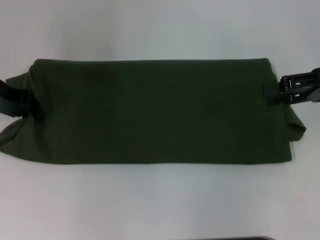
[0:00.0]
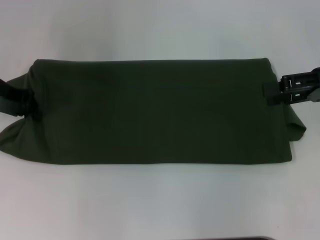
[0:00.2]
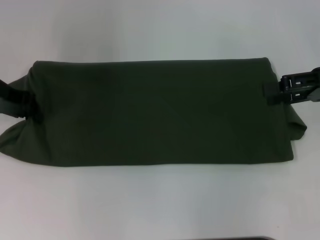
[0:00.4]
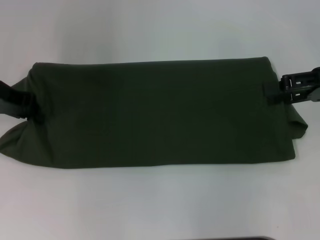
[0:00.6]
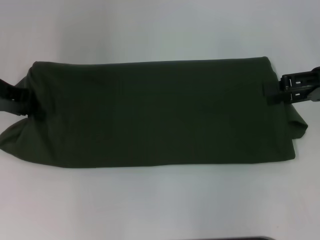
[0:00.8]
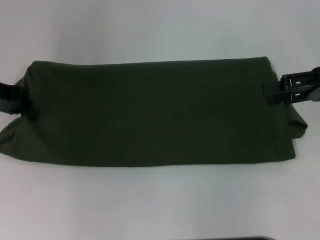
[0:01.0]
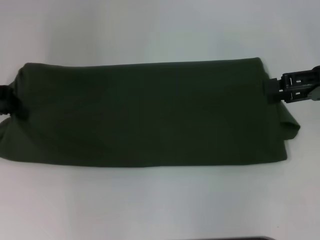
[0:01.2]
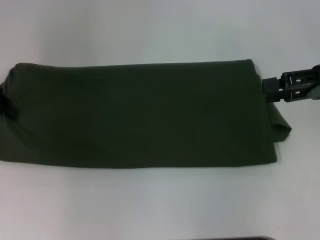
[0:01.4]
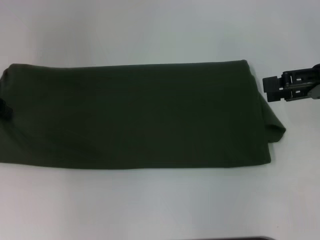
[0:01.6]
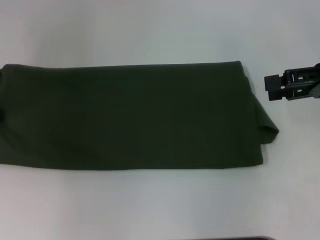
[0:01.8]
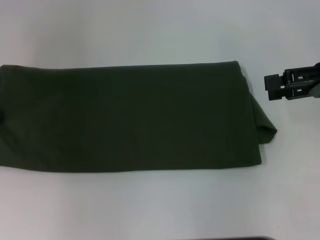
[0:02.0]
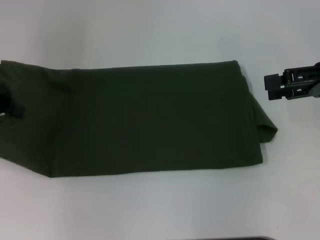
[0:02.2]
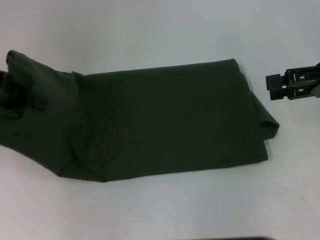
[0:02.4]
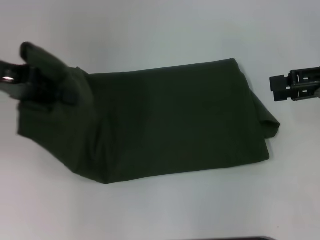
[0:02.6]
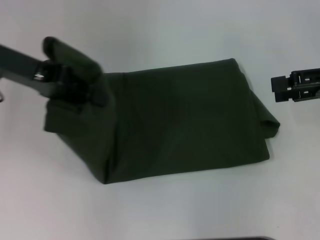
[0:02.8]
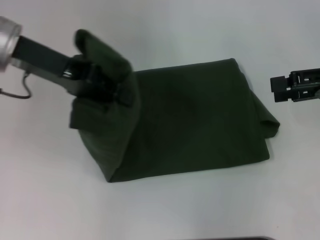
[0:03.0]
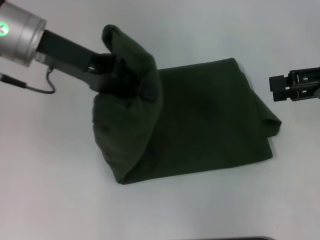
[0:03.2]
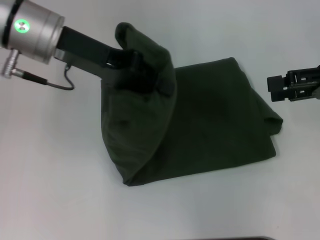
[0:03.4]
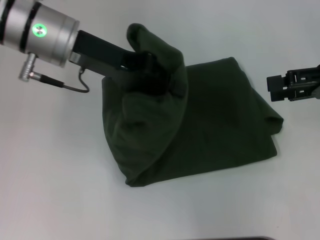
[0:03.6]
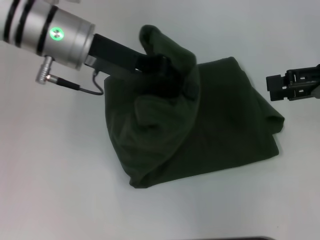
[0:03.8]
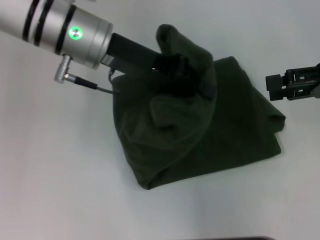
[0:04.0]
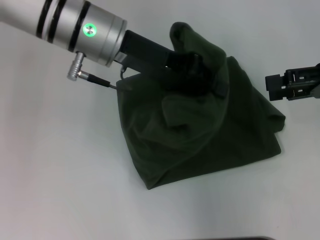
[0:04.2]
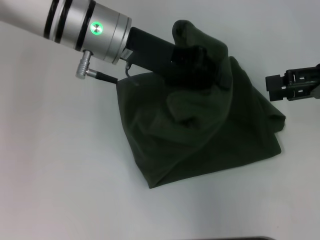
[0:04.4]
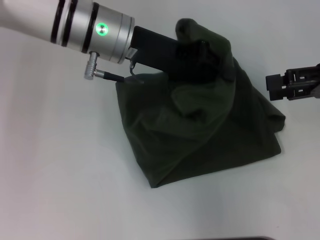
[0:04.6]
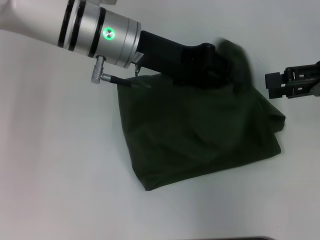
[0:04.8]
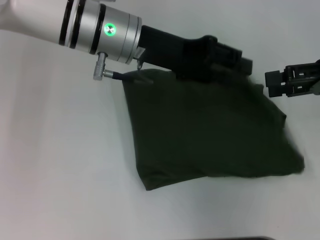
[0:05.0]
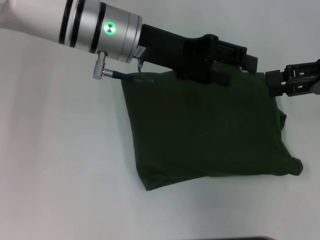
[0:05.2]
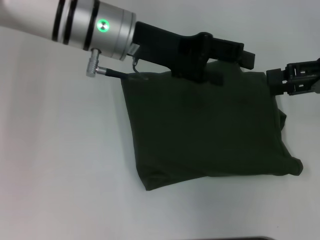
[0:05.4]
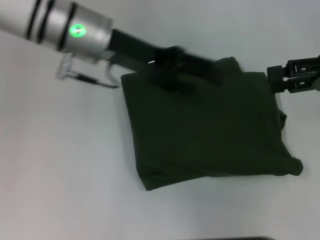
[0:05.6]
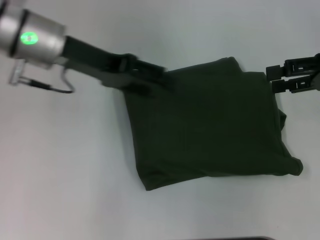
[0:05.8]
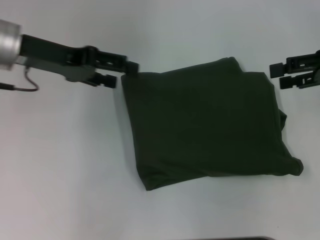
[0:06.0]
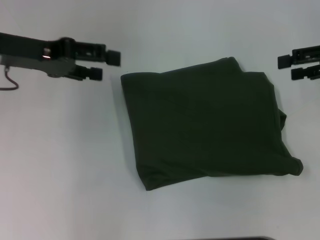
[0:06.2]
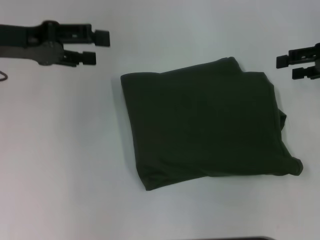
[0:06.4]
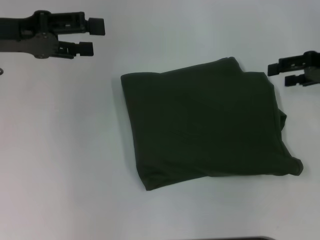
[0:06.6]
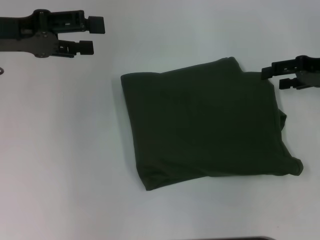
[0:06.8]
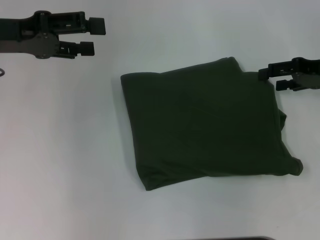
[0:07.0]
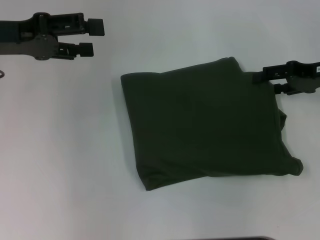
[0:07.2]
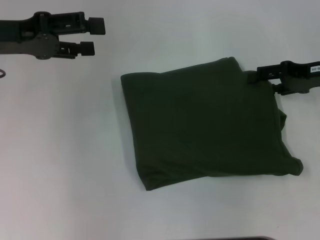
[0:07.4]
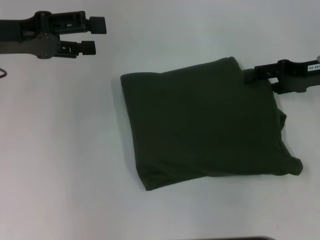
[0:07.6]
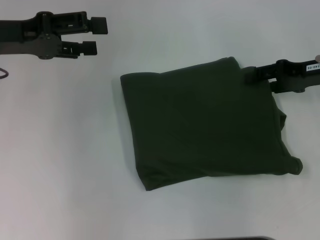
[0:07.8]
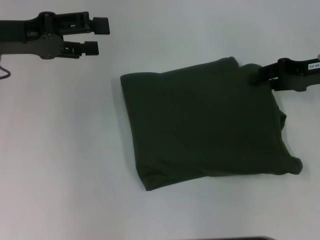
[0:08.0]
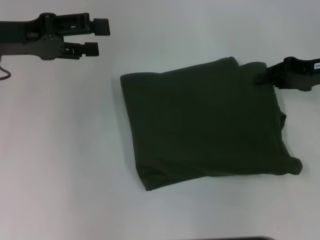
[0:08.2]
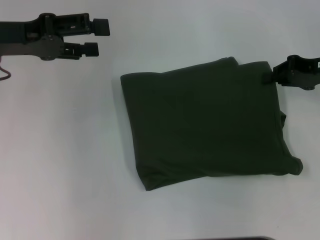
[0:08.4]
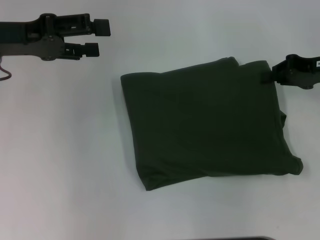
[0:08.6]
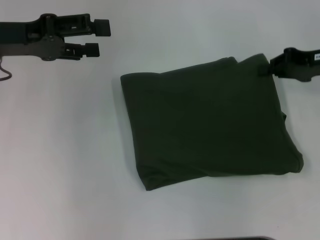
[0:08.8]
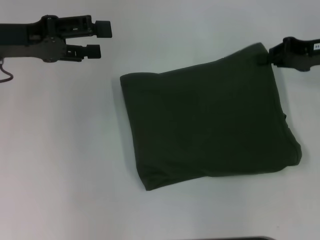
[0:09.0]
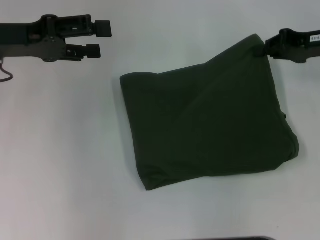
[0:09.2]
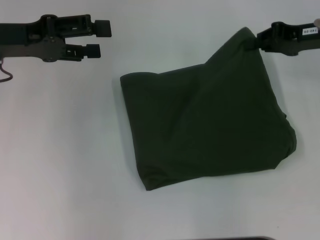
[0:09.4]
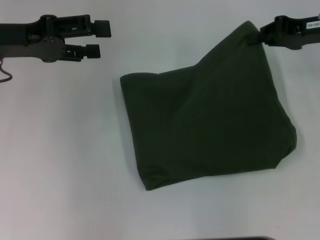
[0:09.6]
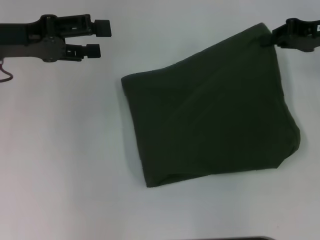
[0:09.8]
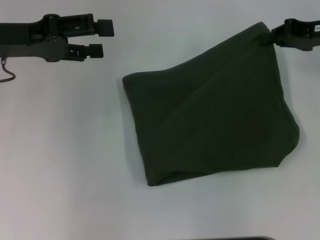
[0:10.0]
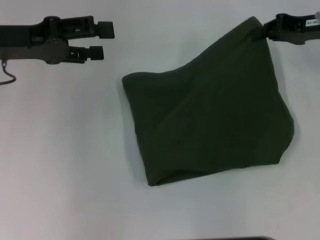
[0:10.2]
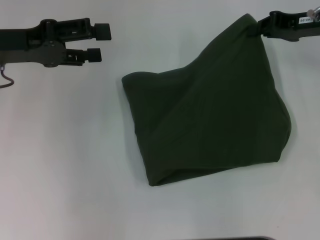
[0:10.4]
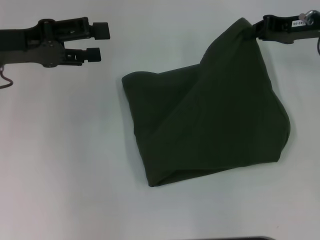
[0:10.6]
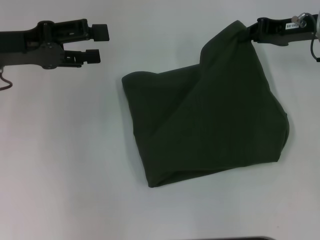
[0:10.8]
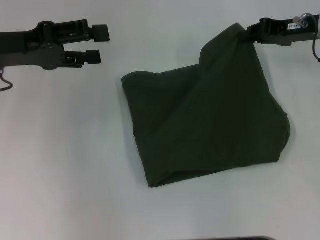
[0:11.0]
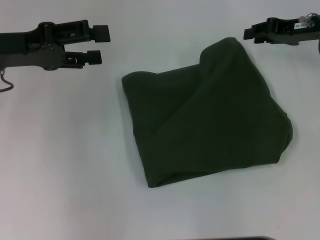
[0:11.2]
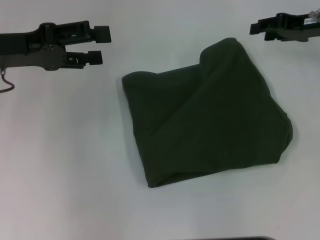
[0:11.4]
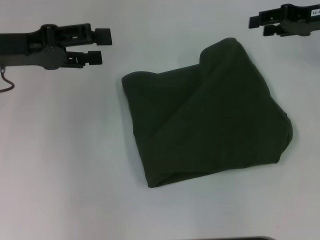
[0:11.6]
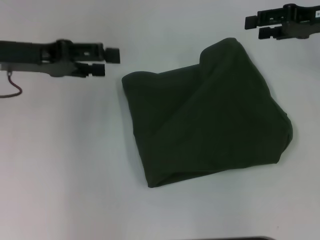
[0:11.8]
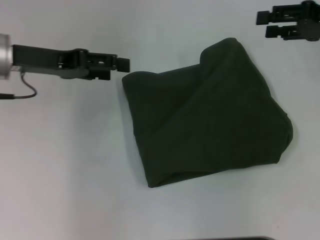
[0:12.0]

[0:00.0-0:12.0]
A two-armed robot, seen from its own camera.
Step, 0:00.0 to 0:05.8: Fold the clothes with your left hand.
0:00.0 to 0:01.6: The left gripper shifts approximately 5 cm to the left, and closes up.
0:01.6 to 0:03.0: The left gripper shifts approximately 15 cm to the right.
0:03.0 to 0:04.4: The left gripper moves to the right, about 10 cm.
0:04.4 to 0:06.0: The left gripper is displaced to the left by some 15 cm, and opens its fingers.
0:06.0 to 0:07.6: The left gripper shifts by about 5 cm. The right gripper shifts roughly 5 cm downward.
0:07.6 to 0:09.0: The right gripper closes.
0:09.0 to 0:10.4: The grippers stay close to where they were, moving slightly.
0:10.4 to 0:12.0: The right gripper opens its fingers.

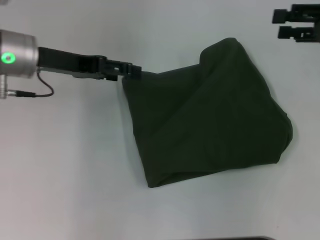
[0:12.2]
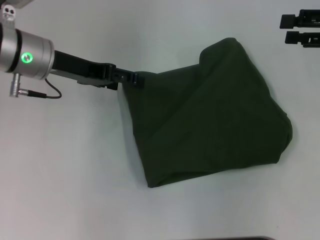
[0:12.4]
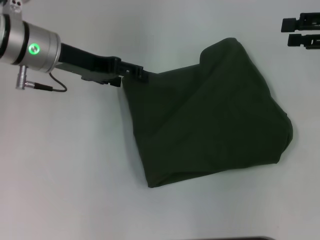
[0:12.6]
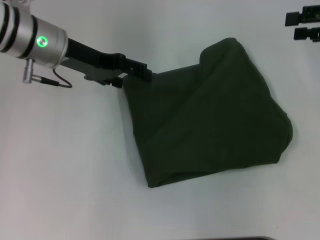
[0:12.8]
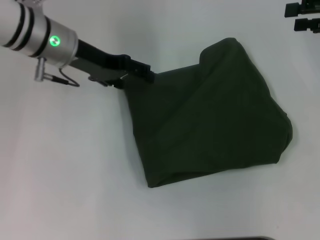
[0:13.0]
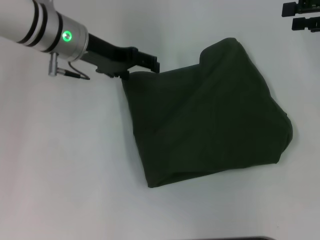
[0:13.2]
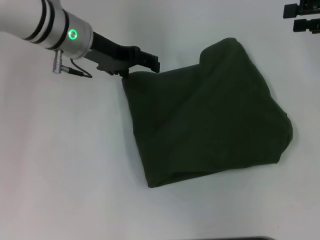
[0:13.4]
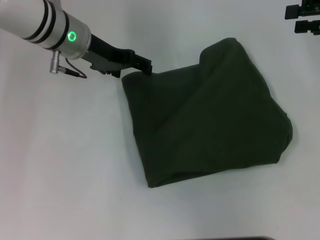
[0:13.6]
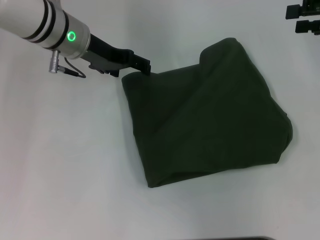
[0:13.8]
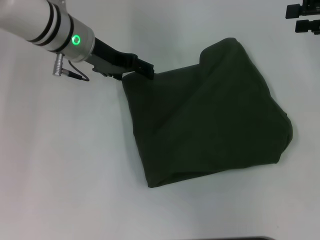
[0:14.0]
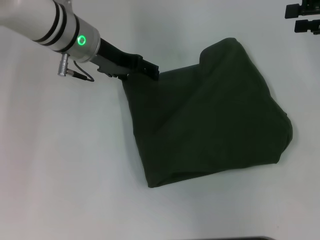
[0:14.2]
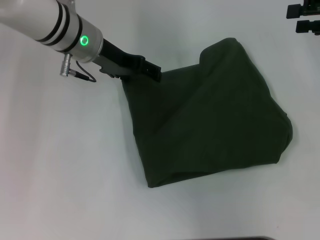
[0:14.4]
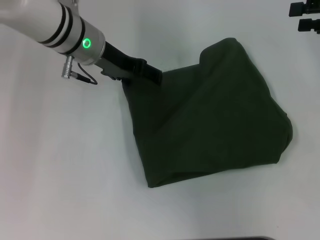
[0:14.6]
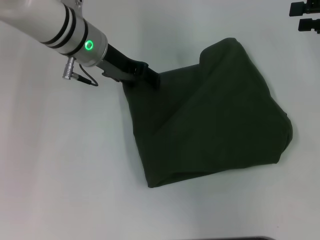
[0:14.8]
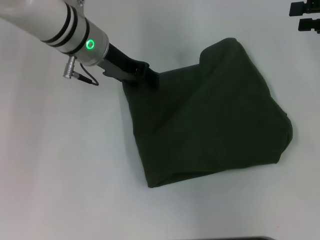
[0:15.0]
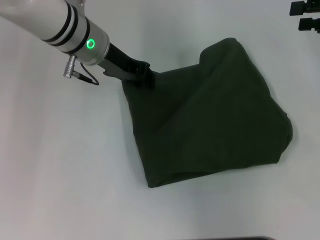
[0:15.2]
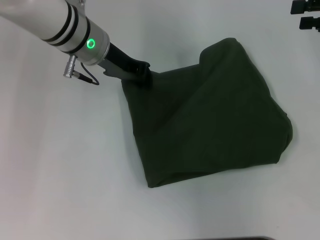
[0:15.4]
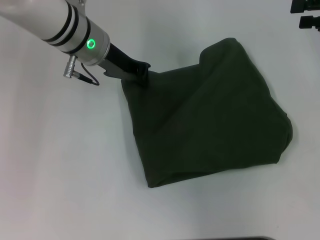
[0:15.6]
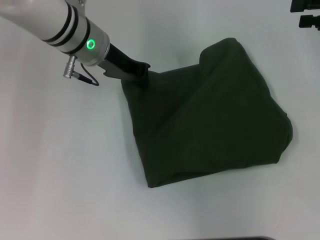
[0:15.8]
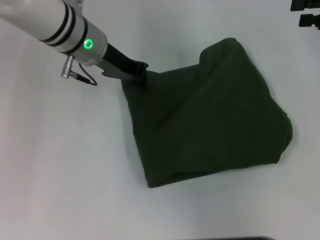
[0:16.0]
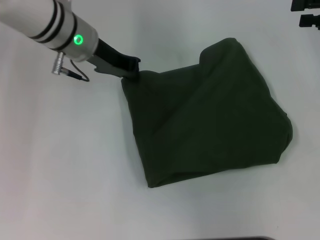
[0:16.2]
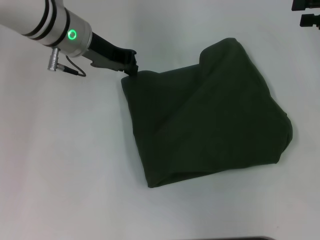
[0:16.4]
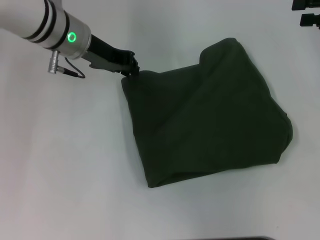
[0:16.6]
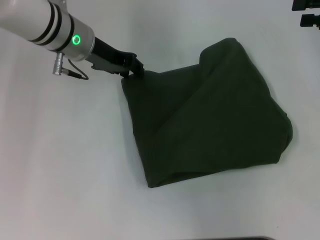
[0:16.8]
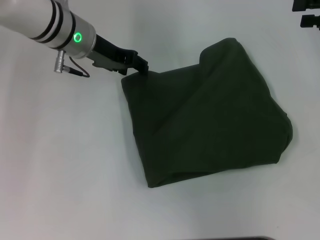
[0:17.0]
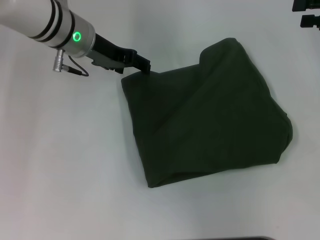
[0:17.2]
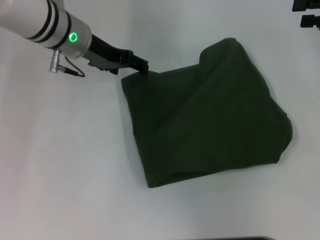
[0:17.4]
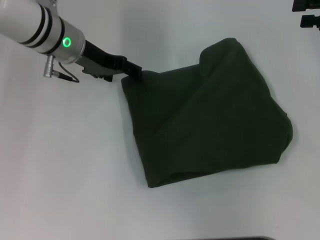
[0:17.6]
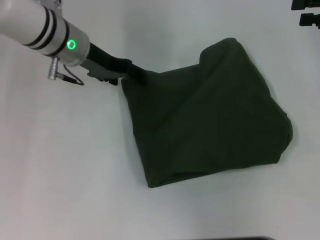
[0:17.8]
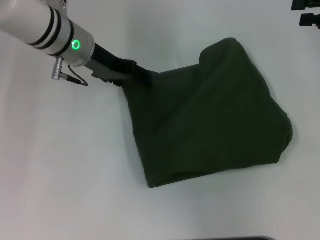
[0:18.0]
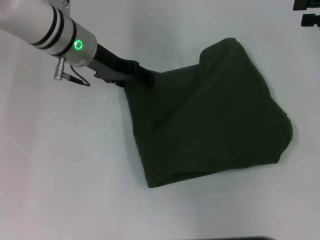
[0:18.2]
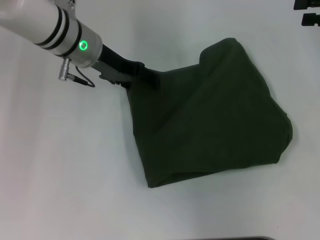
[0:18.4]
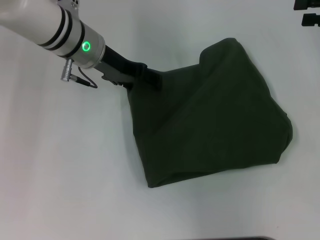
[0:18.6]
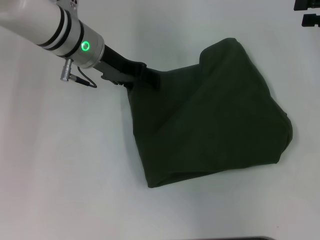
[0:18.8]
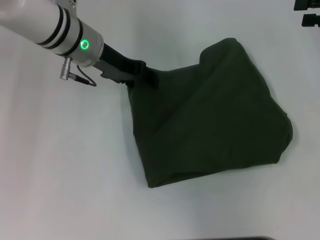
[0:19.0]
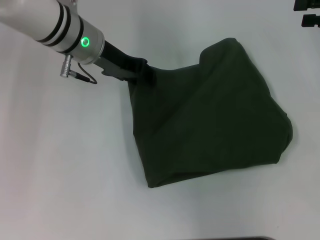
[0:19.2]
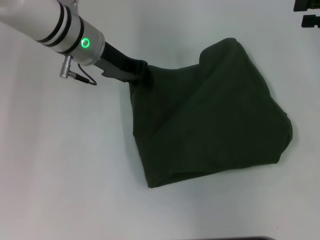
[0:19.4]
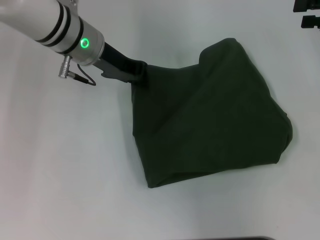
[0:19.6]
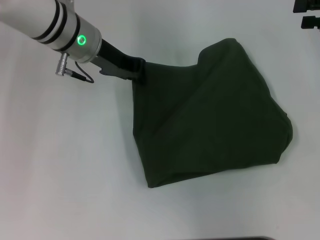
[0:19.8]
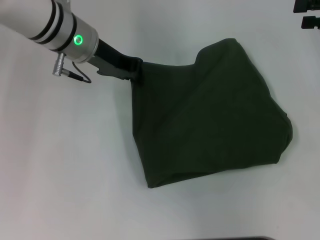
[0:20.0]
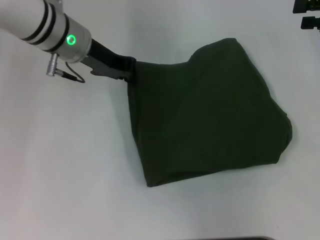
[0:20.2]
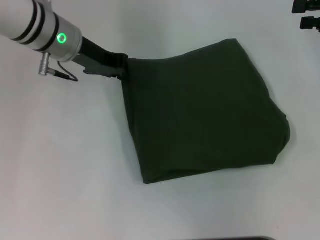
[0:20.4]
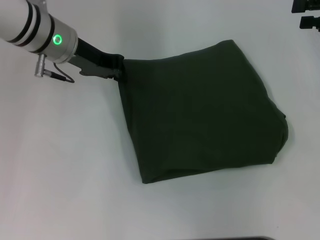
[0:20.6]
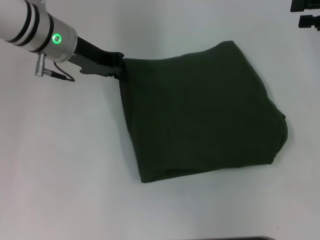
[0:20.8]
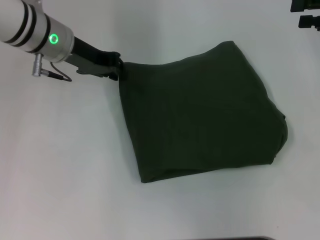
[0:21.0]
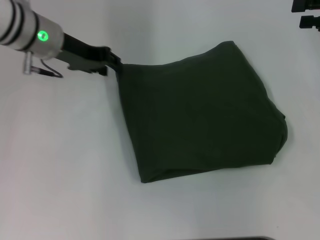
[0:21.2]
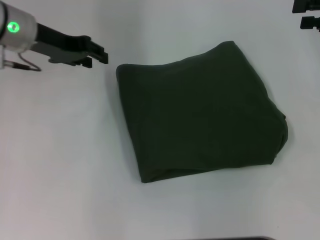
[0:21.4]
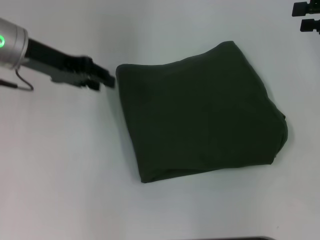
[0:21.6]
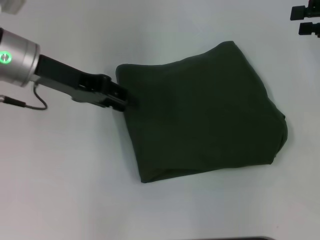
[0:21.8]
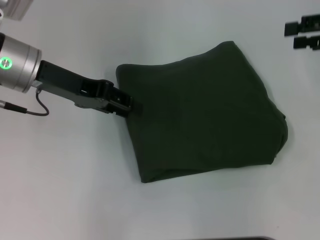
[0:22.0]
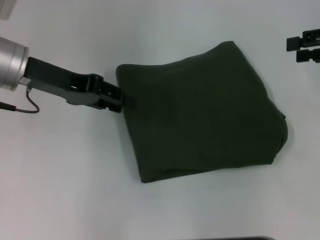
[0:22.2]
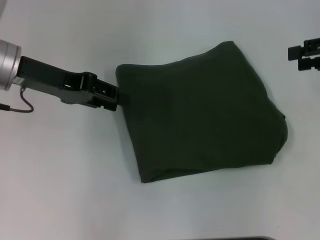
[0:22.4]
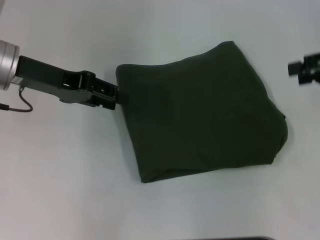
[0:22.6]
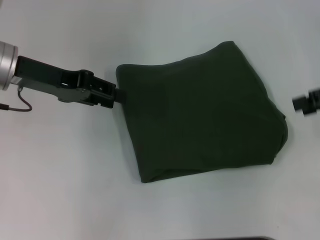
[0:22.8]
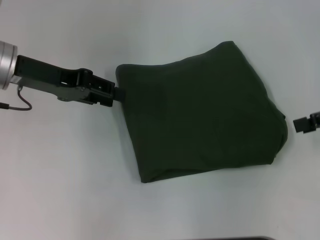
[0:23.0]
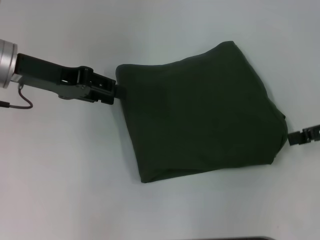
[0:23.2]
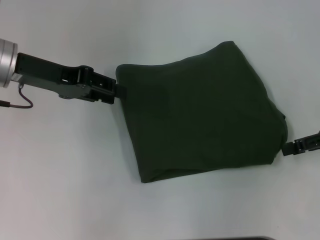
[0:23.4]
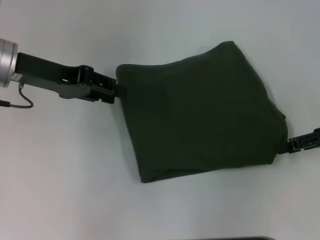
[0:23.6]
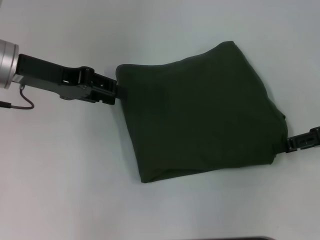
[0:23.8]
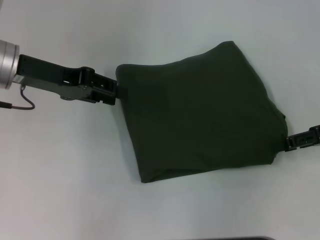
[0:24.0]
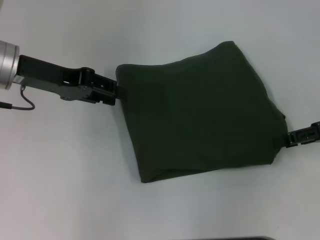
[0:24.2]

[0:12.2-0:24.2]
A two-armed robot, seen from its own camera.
0:12.2 to 0:13.8: The left gripper is displaced to the right by about 5 cm.
0:13.8 to 0:15.2: There are only small adjustments of the grippers.
0:15.2 to 0:16.6: The left gripper closes up.
0:16.6 to 0:18.2: The left gripper opens.
0:18.2 to 0:19.8: The left gripper closes.
0:19.8 to 0:21.2: The left gripper heads to the left, covering about 5 cm.
0:21.2 to 0:22.6: The left gripper moves backward, roughly 5 cm.
0:22.6 to 0:24.2: The right gripper goes about 5 cm downward.
